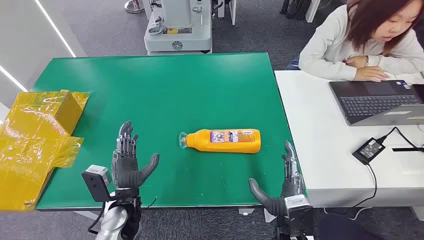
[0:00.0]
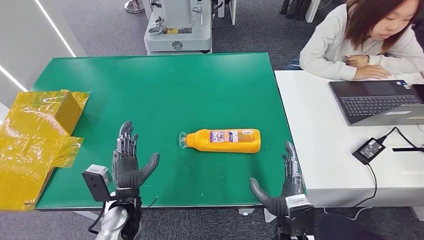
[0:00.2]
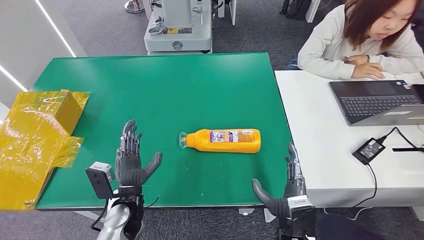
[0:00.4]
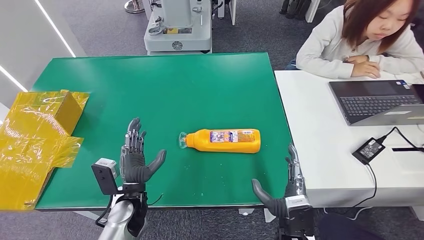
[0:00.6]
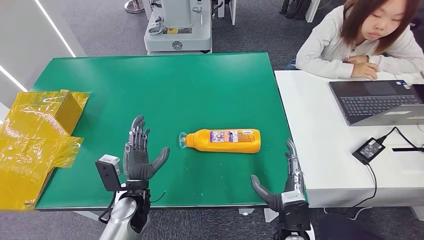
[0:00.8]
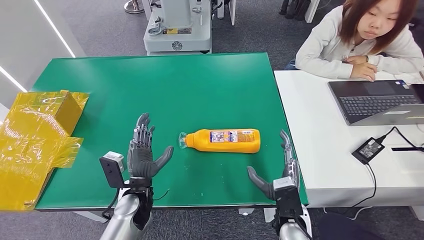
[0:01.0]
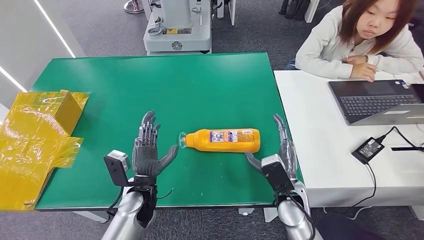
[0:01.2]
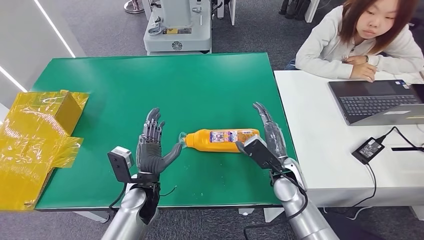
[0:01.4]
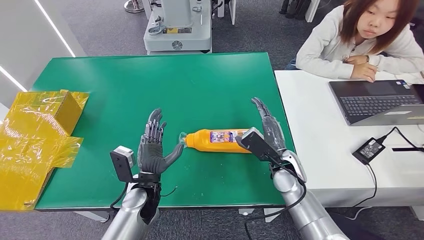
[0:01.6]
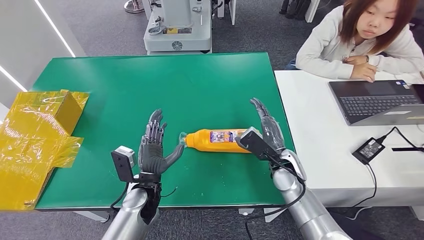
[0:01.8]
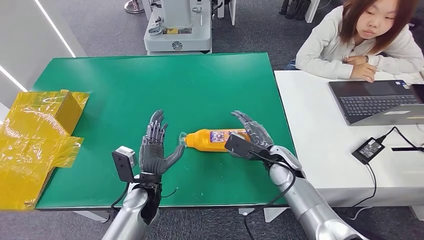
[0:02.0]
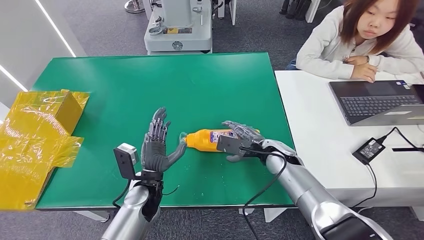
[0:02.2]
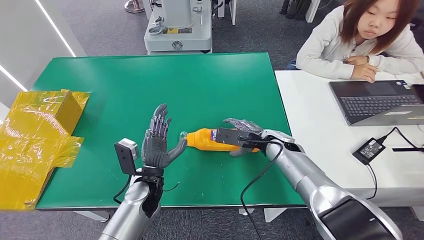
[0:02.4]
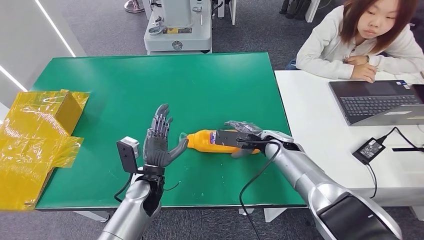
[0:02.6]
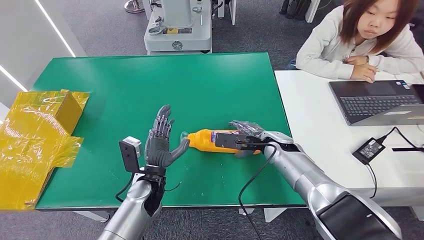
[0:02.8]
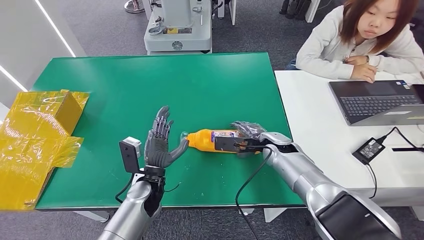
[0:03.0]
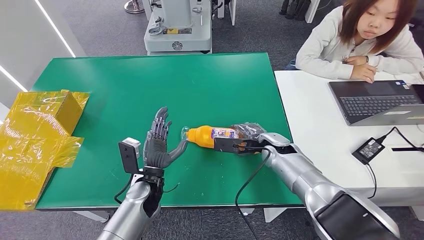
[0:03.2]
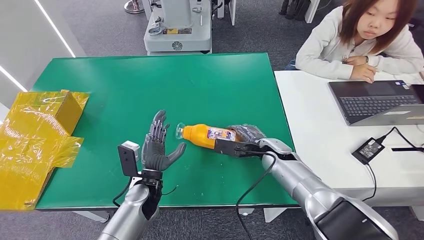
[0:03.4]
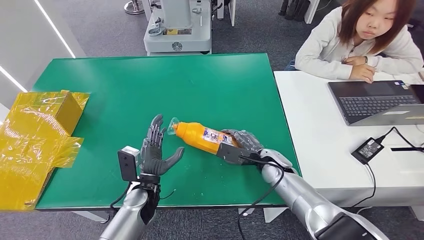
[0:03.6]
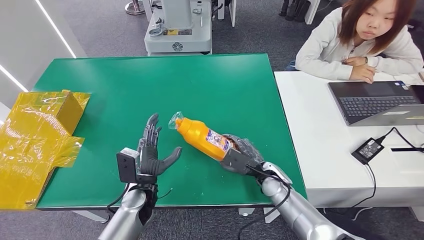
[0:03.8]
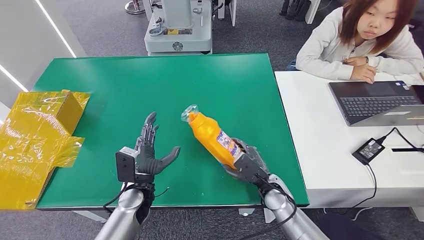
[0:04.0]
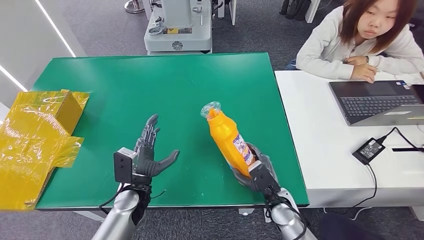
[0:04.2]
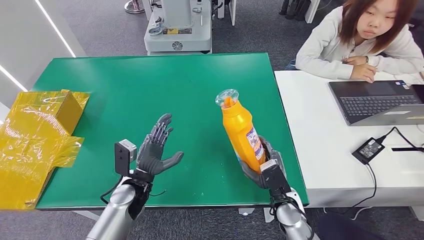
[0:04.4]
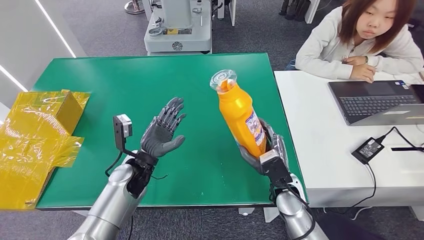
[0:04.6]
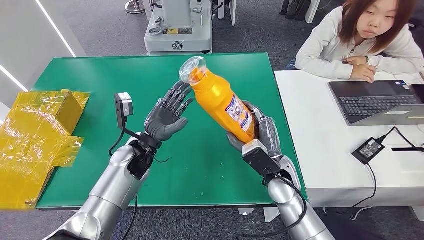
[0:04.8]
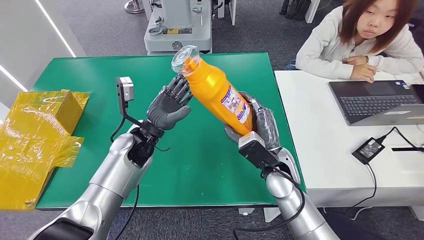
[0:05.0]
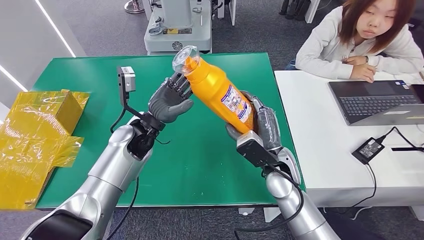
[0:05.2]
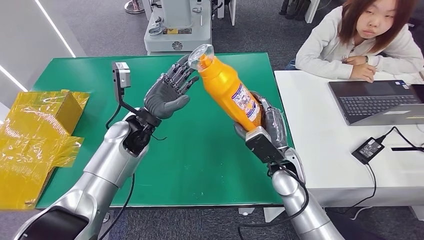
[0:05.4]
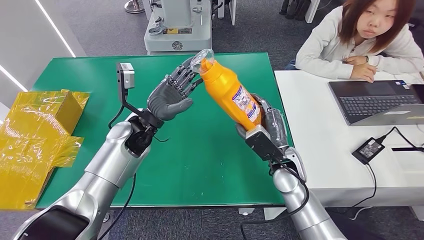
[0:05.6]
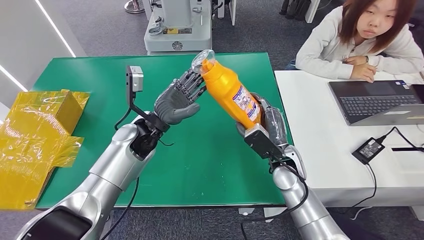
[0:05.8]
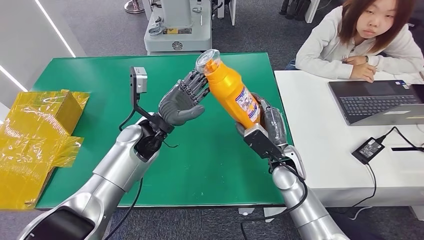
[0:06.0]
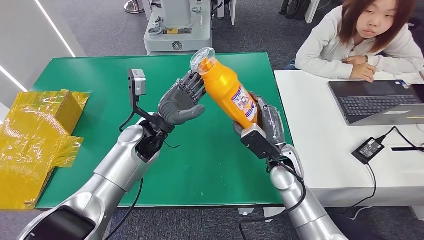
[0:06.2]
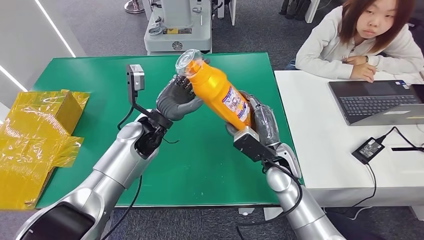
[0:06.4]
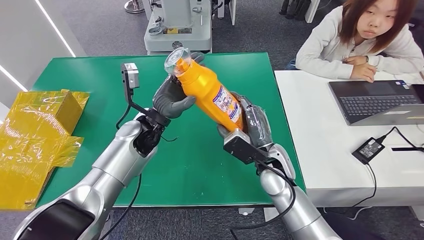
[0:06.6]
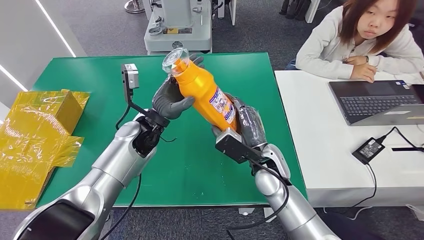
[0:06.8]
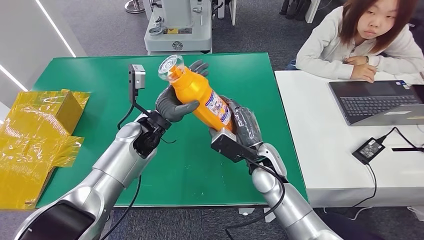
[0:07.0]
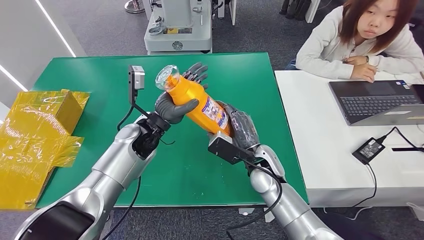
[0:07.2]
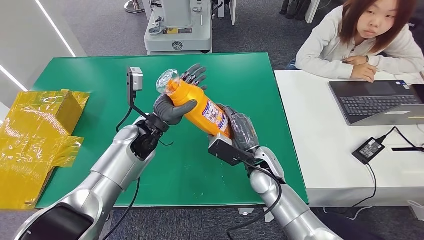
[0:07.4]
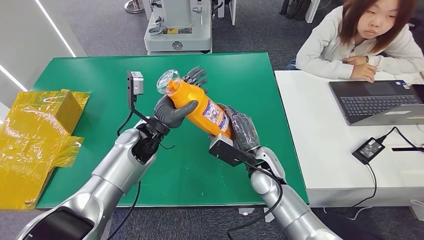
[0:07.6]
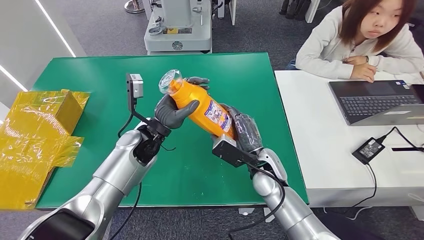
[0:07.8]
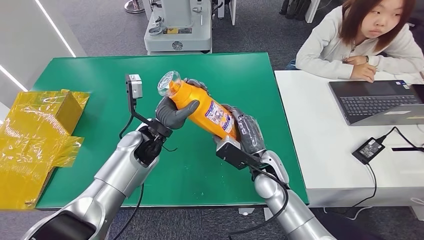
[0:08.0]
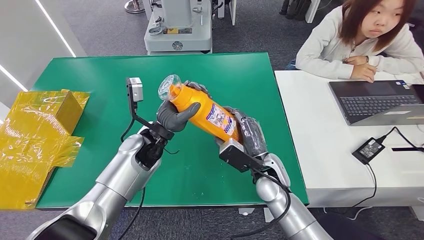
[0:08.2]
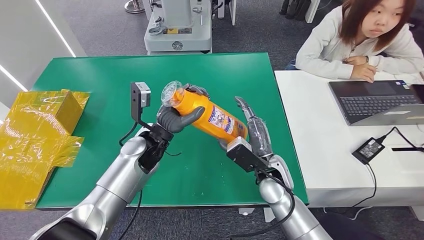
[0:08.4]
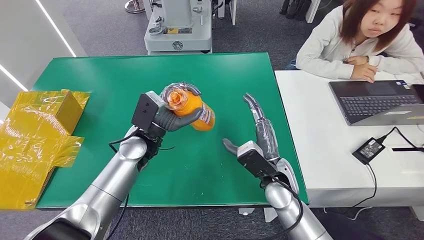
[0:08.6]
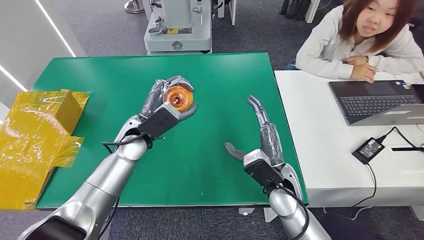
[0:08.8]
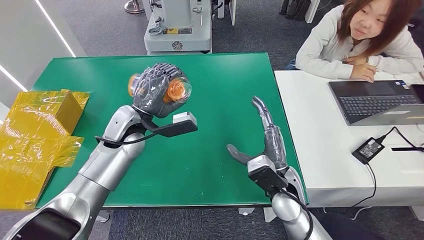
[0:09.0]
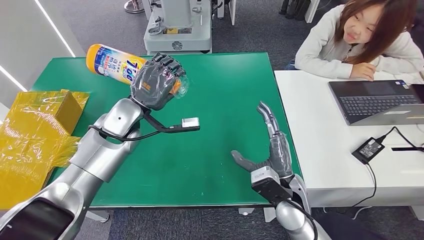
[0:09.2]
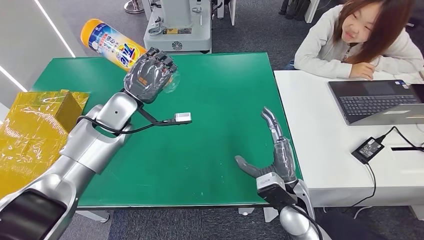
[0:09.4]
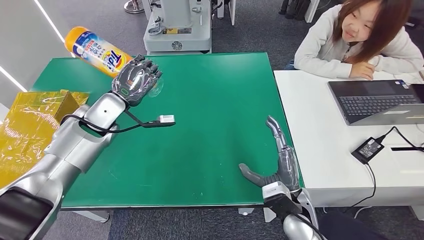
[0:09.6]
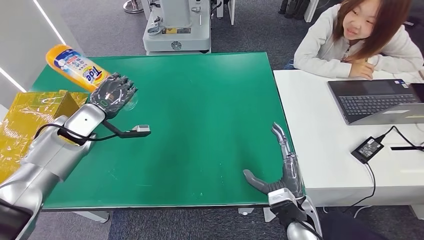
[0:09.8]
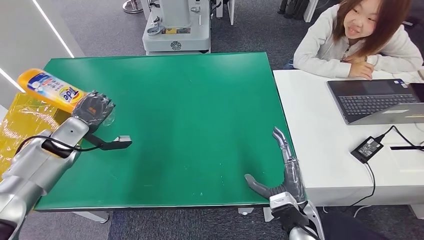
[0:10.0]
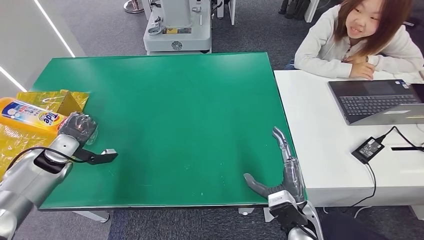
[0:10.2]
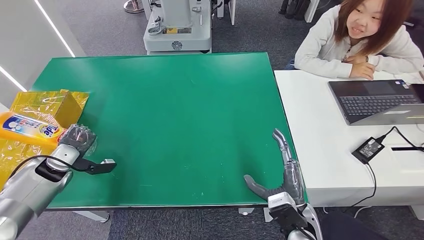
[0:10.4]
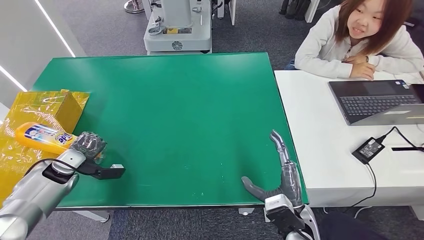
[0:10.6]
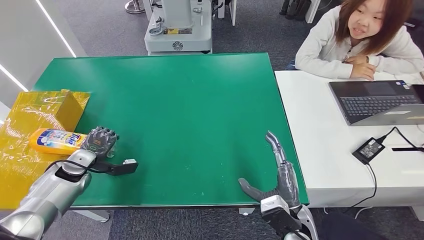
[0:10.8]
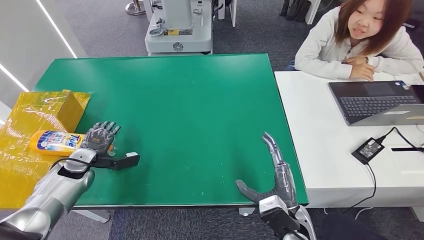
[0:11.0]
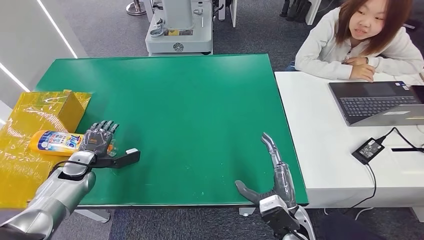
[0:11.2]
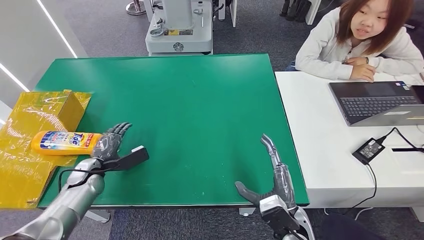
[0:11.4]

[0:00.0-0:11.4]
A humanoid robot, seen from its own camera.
Step, 0:00.0 to 0:03.8: Pick up the bottle from the table.
Step, 0:04.0 to 0:11.4: Turn the bottle to the front side.
0:01.4 to 0:02.8: The right hand travels forward by roughly 10 cm.
0:02.8 to 0:04.2: The right hand travels backward and downward by roughly 20 cm.
0:05.6 to 0:07.2: The right hand shifts some 5 cm to the left.

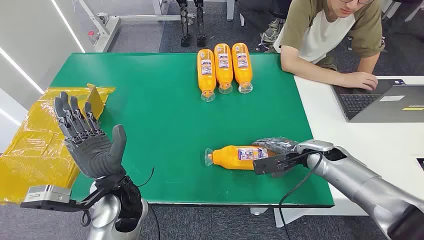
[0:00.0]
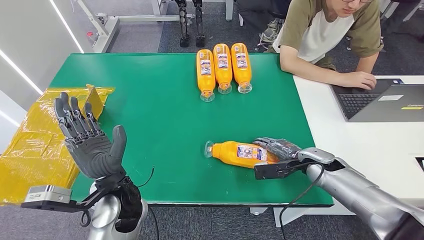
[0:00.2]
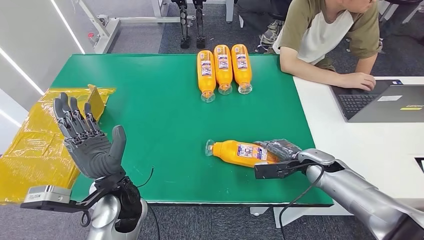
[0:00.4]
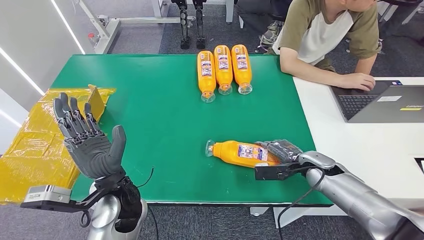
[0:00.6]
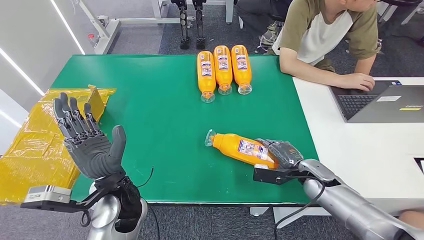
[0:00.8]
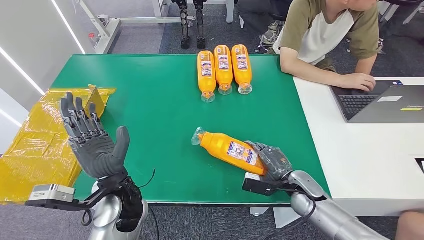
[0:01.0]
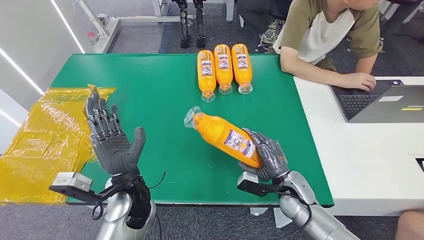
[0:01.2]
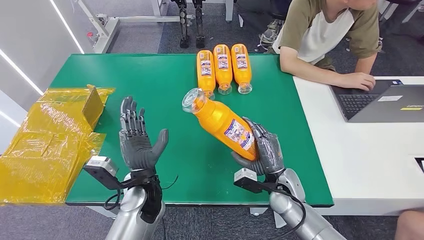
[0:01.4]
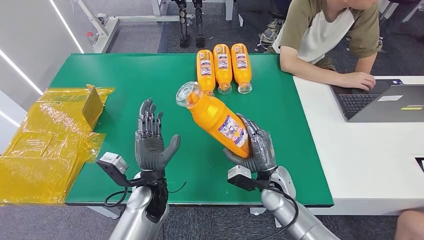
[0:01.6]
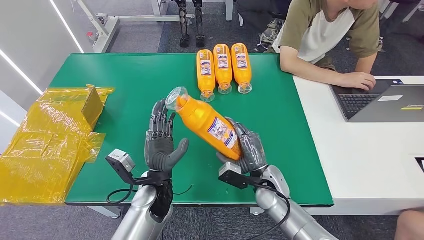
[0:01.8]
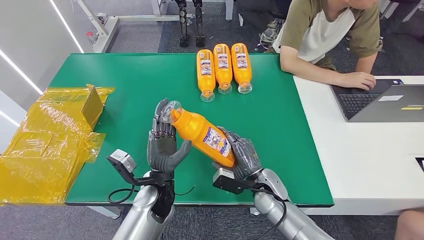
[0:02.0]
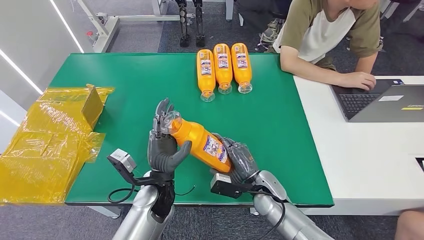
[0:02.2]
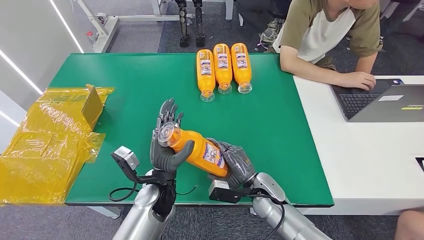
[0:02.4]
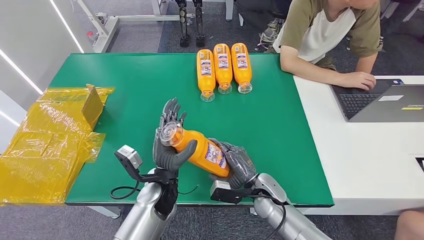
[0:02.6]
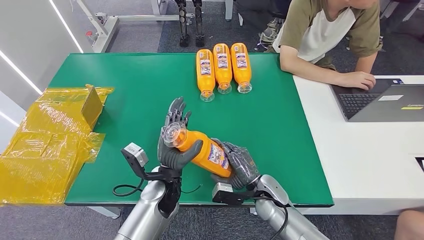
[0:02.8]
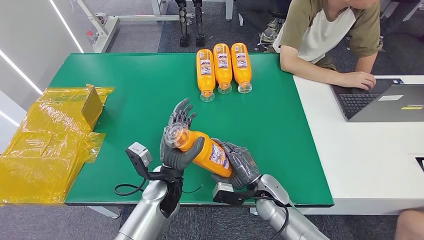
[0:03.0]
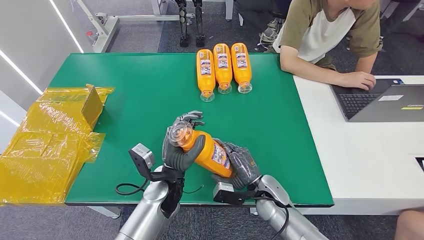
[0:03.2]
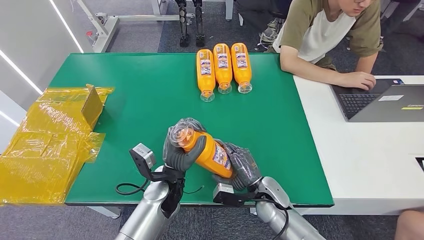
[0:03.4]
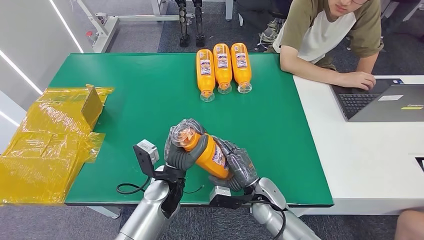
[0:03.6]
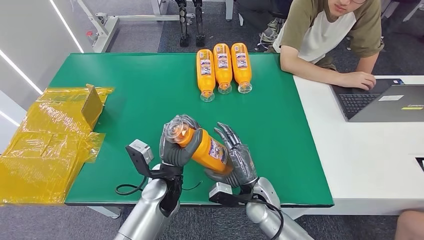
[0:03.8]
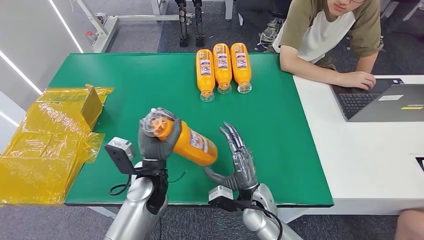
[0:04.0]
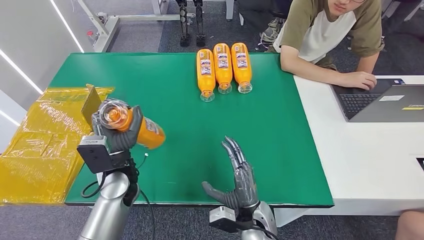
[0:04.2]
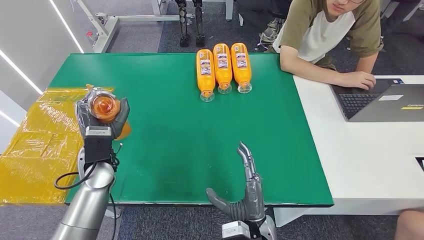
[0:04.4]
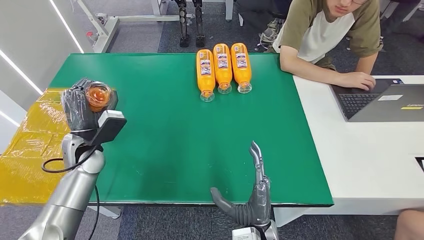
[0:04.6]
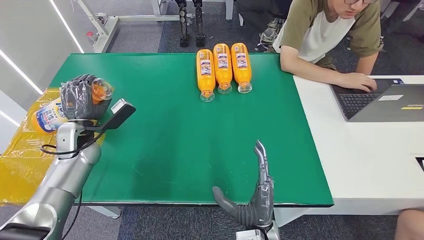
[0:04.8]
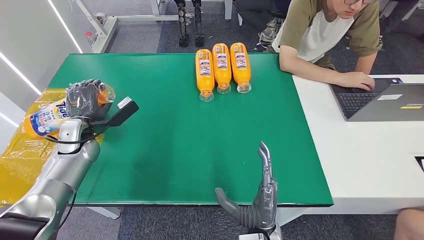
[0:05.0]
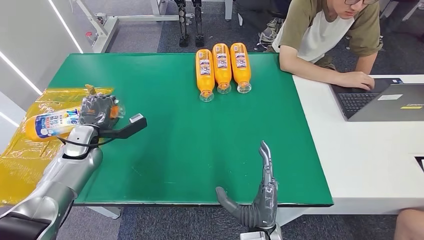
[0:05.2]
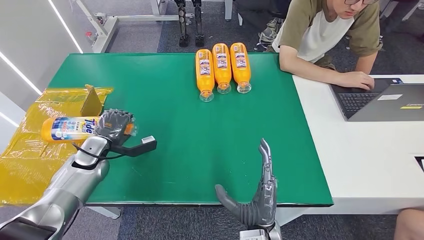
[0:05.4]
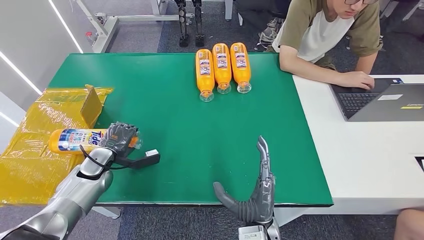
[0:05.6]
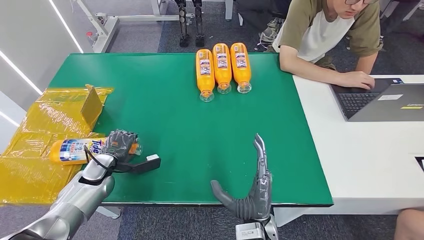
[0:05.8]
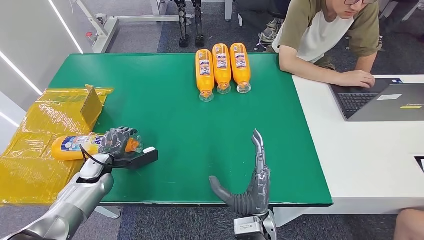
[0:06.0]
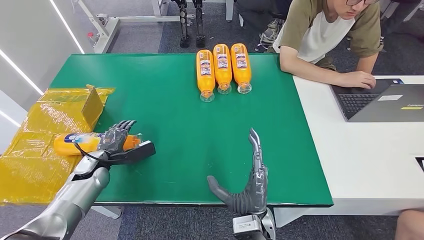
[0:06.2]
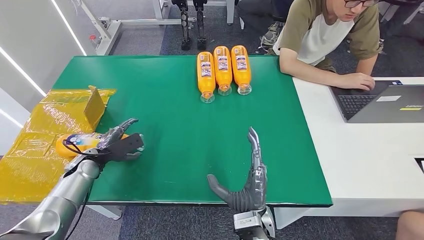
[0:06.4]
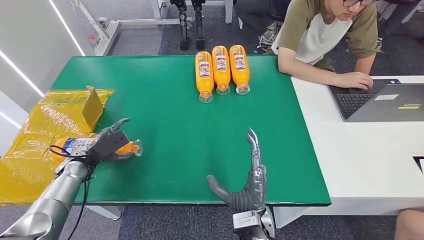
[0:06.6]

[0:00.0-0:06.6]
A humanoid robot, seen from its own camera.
Step, 0:00.0 to 0:01.8: Pick up the bottle from the table.
Step, 0:02.0 to 0:06.6: Turn the bottle to the front side.
0:03.2 to 0:05.0: The left hand heads to the left and forward, covering some 30 cm; the right hand shifts approximately 15 cm backward and to the left.
0:05.0 to 0:06.6: The left hand is displaced downward and backward by some 10 cm.
